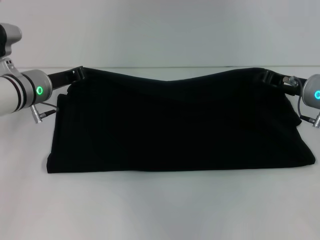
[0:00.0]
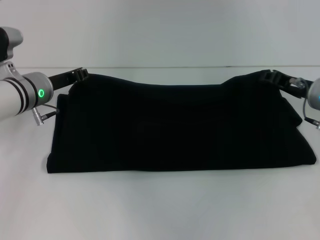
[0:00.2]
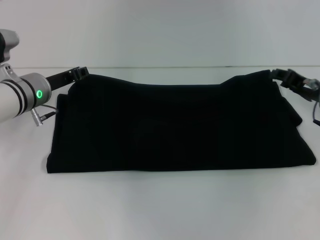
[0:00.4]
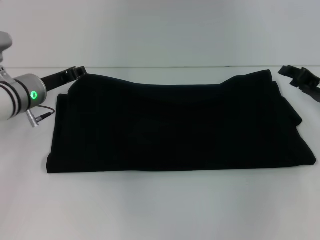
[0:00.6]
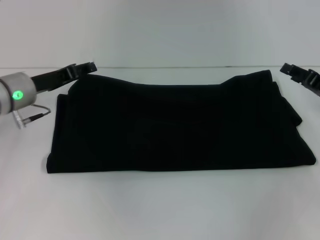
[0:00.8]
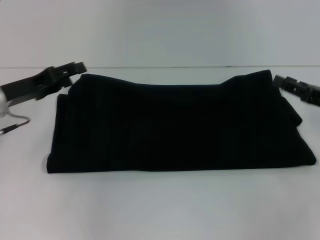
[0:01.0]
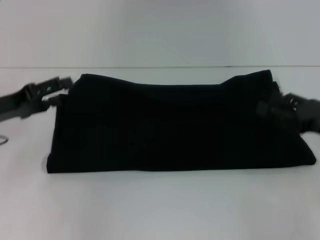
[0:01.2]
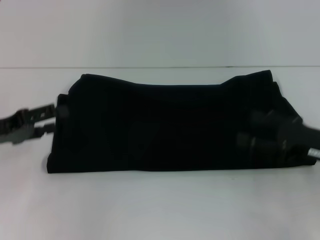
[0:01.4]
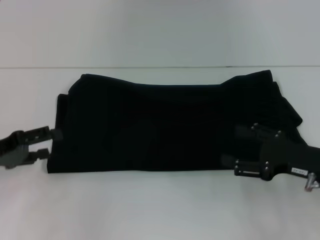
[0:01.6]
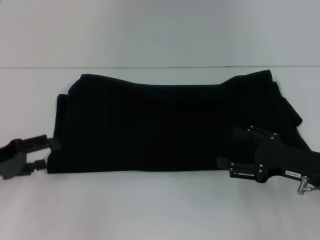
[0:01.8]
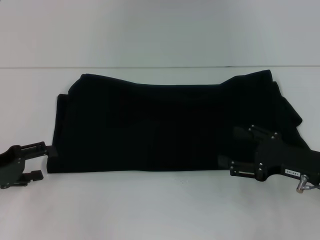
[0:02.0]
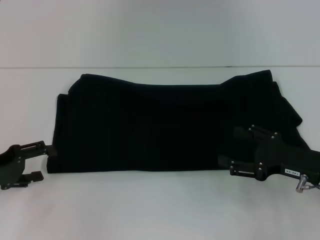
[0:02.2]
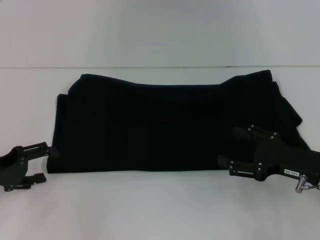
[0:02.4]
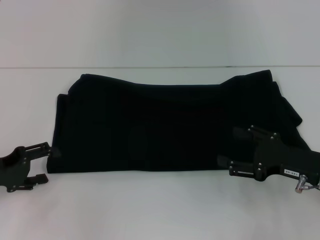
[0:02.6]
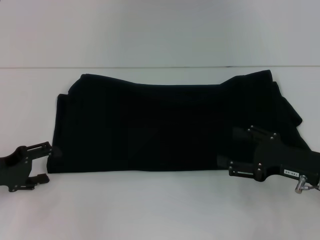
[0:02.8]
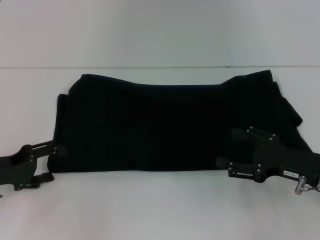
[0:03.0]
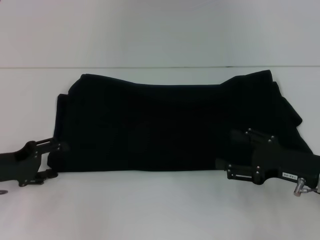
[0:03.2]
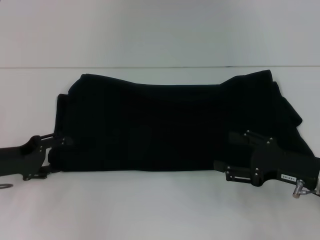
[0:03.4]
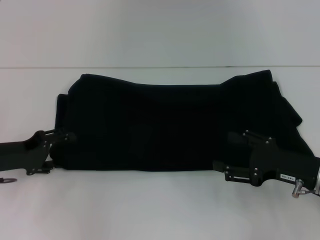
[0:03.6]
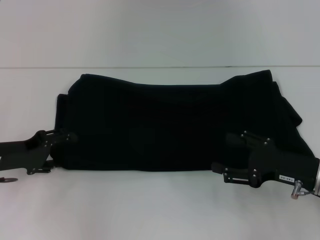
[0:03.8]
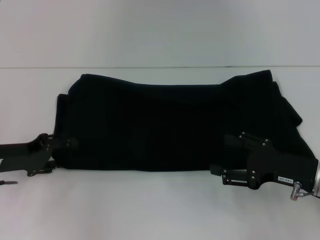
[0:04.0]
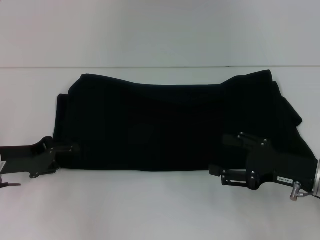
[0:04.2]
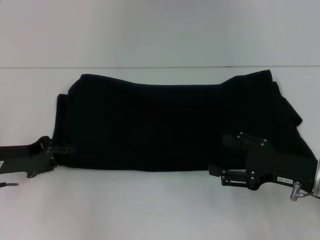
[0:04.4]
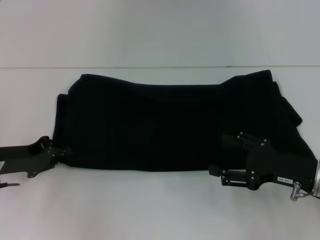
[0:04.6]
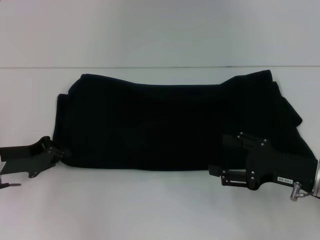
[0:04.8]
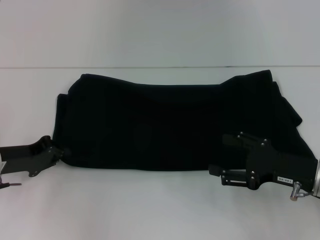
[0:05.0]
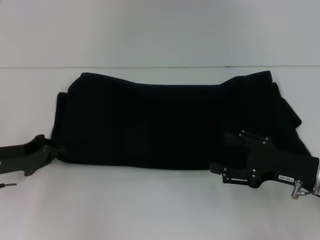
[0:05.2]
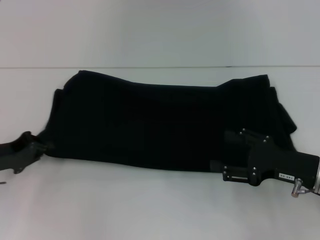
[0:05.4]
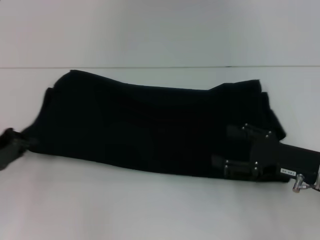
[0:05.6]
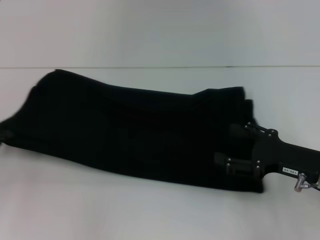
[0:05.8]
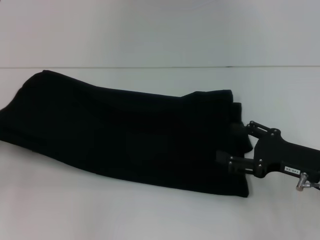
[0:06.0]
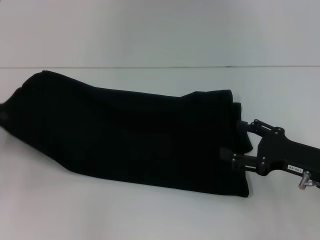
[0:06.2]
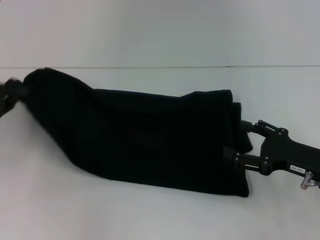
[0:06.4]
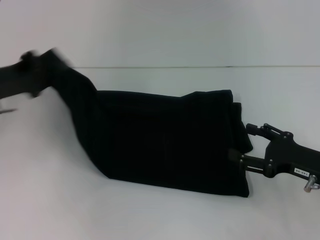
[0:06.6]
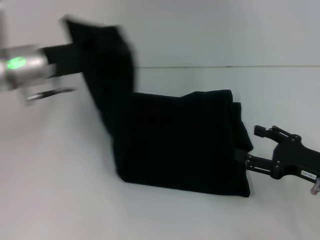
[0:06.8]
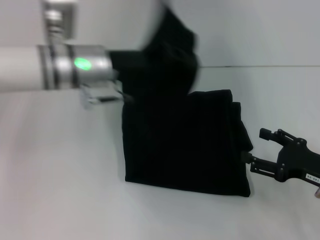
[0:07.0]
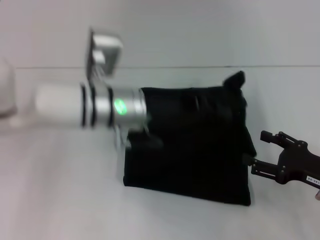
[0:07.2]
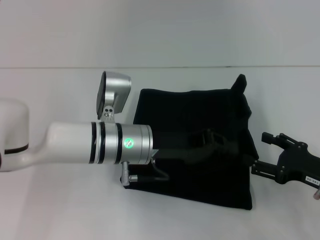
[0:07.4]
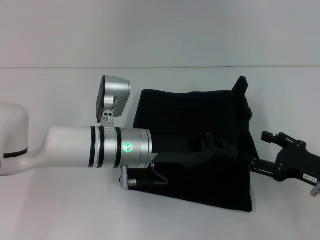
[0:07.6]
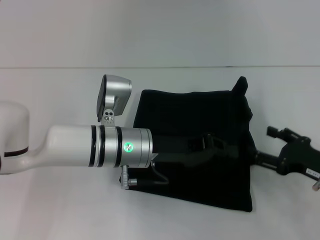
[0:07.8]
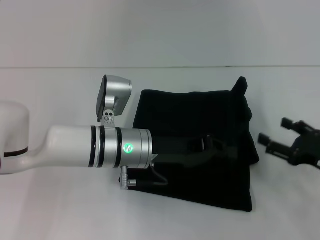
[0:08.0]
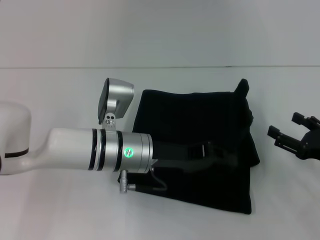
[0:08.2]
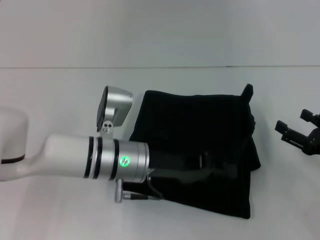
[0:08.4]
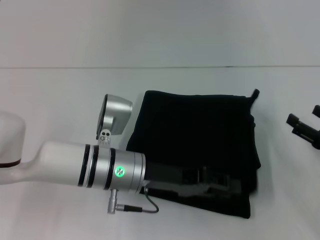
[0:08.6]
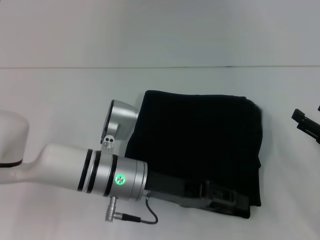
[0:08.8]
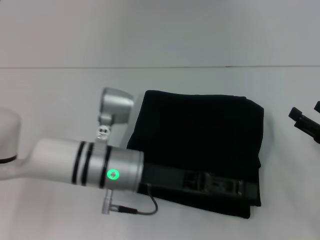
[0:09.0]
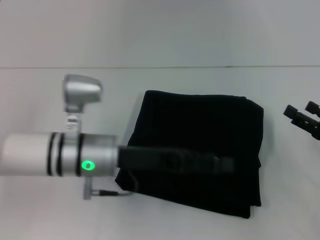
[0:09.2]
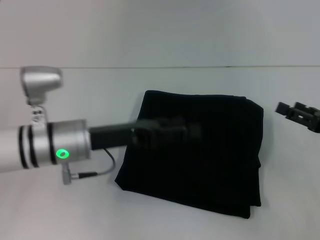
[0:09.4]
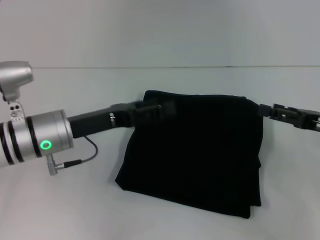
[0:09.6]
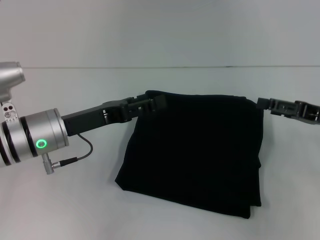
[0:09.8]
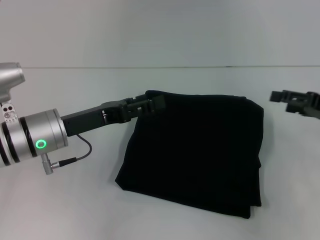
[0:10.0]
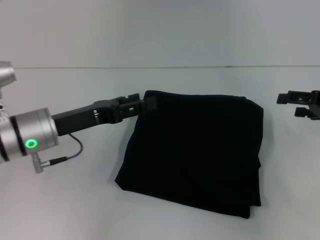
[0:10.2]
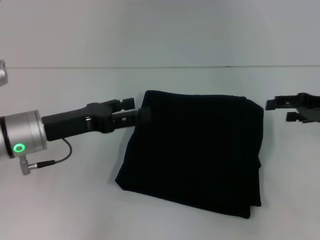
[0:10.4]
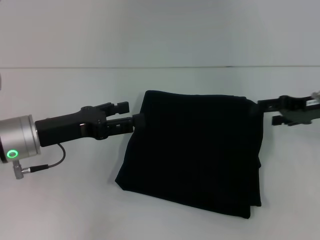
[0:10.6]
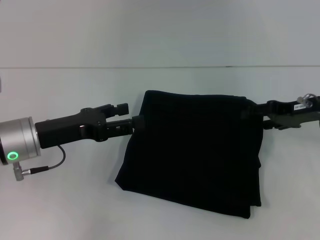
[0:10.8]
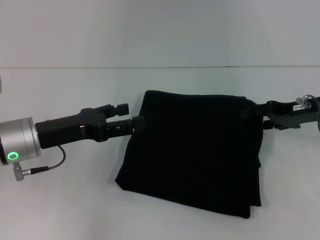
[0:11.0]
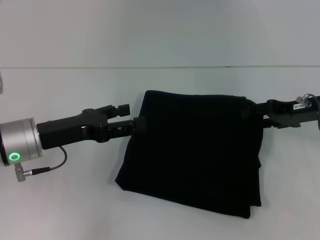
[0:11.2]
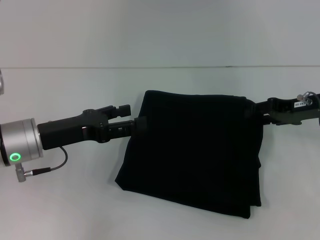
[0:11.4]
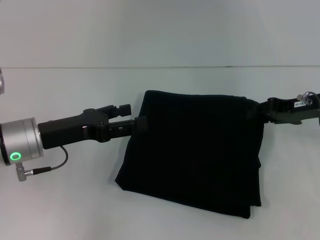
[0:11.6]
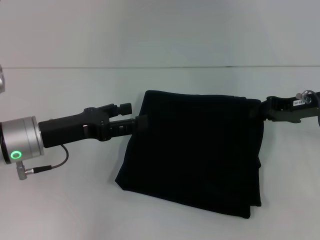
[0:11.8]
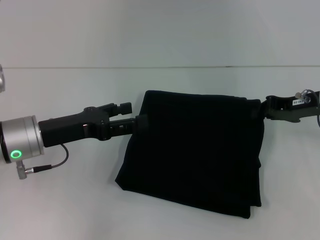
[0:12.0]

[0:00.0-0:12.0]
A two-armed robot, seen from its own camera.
Step, 0:00.0 to 0:09.0: Fold the clothes with your left hand.
0:00.0 to 0:01.6: The left gripper travels backward and to the left by about 20 cm, and opens its fingers, while the right gripper moves backward, approximately 15 cm, and opens.
0:03.0 to 0:04.4: The left gripper closes its fingers.
0:04.4 to 0:06.0: The left gripper travels to the left by approximately 10 cm, and closes up.
0:06.0 to 0:07.6: The left gripper travels to the right by roughly 30 cm.
0:07.6 to 0:09.0: The left gripper opens.
0:09.0 to 0:10.4: The right gripper moves forward and upward, about 15 cm. The left gripper travels to the left by about 15 cm, and opens its fingers.
0:10.4 to 0:12.0: The right gripper changes place by approximately 5 cm, and closes.

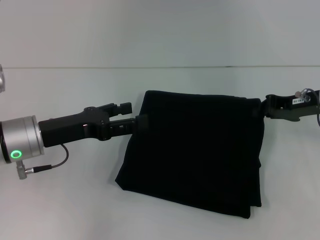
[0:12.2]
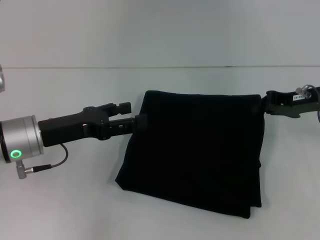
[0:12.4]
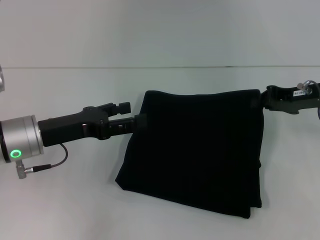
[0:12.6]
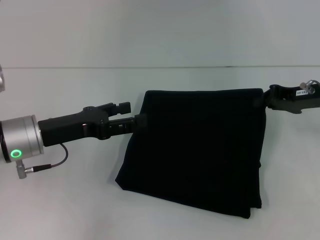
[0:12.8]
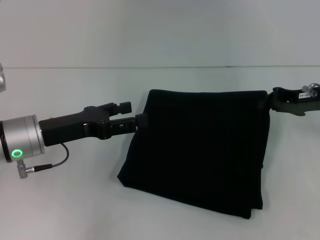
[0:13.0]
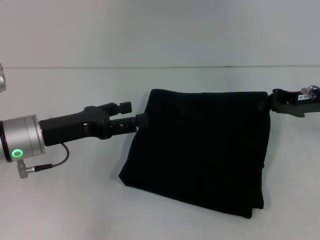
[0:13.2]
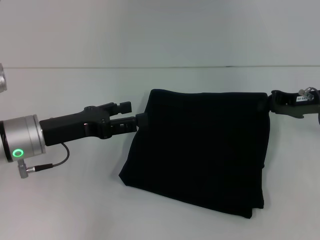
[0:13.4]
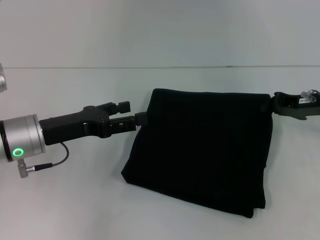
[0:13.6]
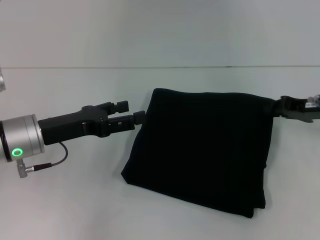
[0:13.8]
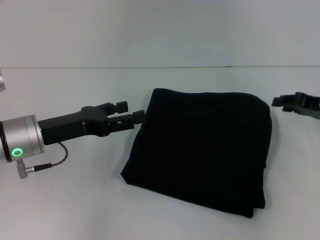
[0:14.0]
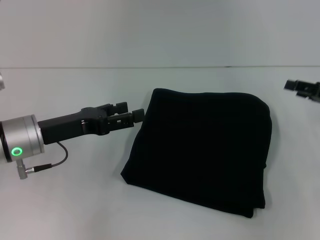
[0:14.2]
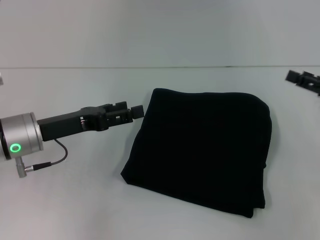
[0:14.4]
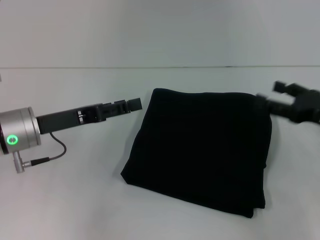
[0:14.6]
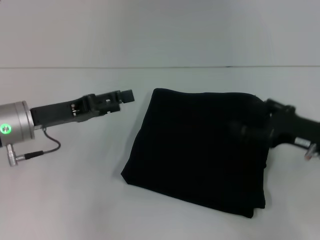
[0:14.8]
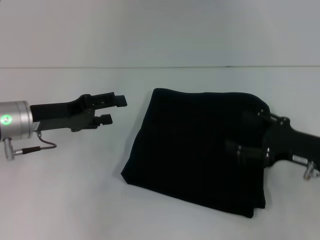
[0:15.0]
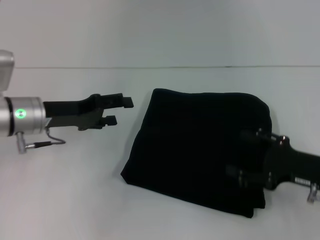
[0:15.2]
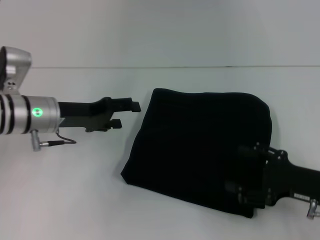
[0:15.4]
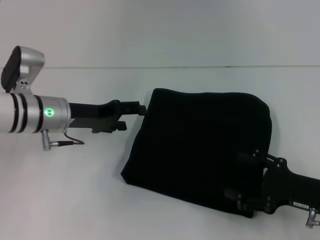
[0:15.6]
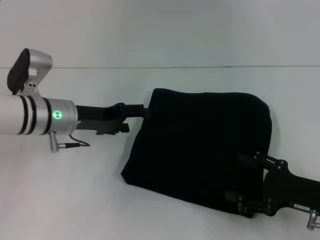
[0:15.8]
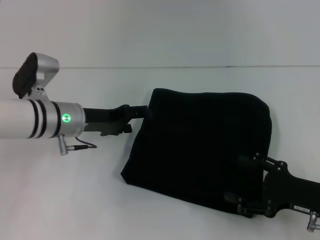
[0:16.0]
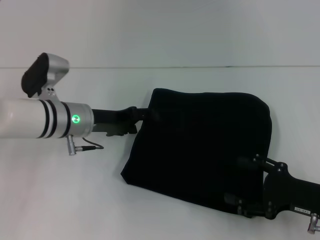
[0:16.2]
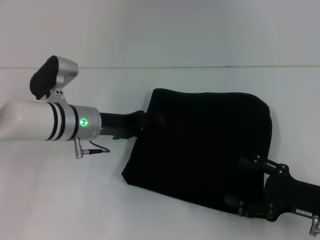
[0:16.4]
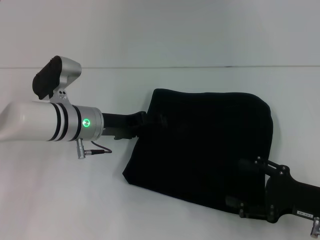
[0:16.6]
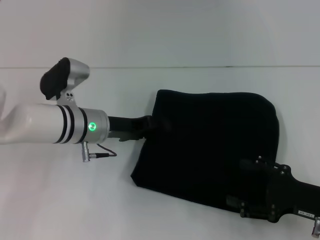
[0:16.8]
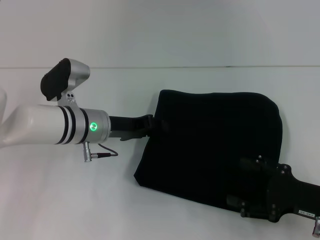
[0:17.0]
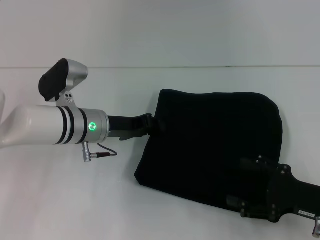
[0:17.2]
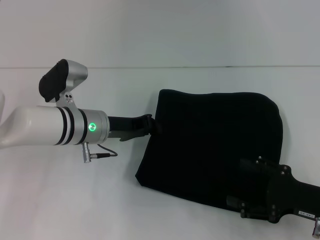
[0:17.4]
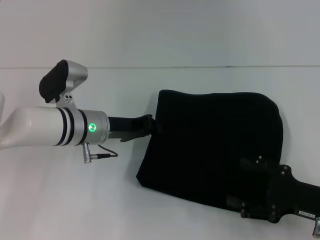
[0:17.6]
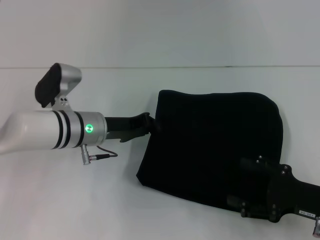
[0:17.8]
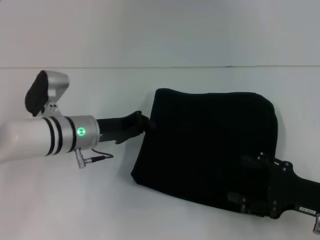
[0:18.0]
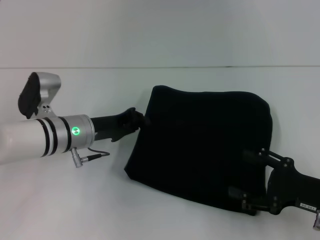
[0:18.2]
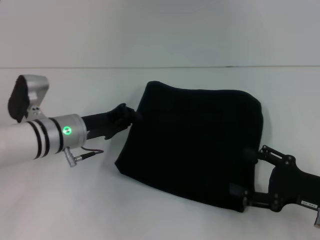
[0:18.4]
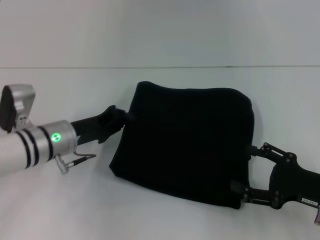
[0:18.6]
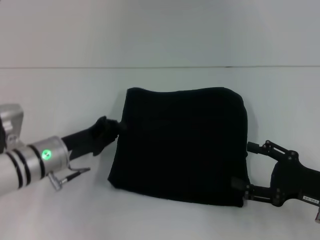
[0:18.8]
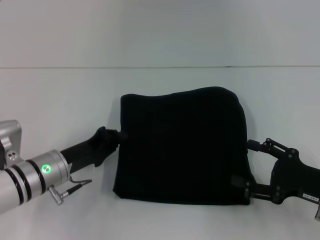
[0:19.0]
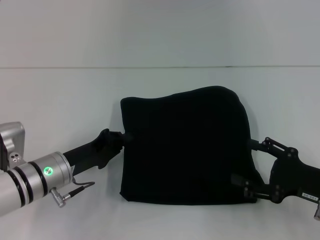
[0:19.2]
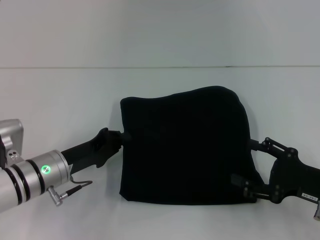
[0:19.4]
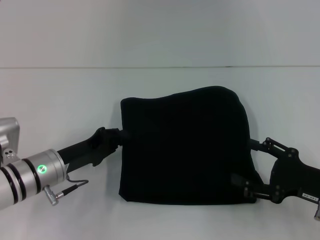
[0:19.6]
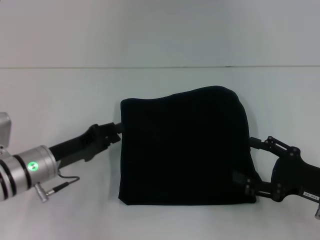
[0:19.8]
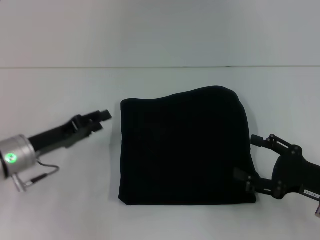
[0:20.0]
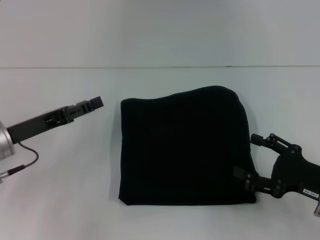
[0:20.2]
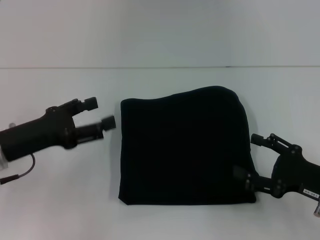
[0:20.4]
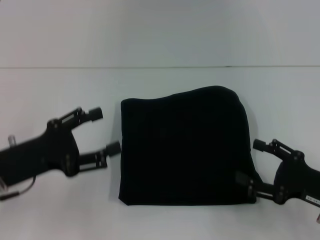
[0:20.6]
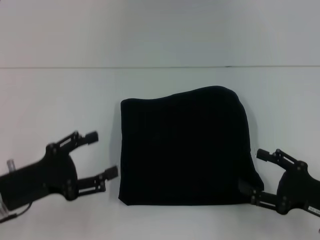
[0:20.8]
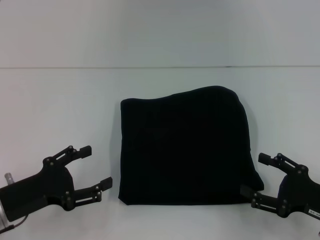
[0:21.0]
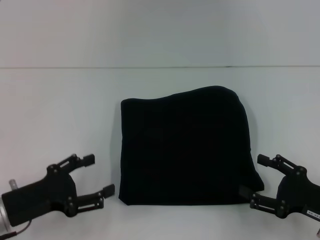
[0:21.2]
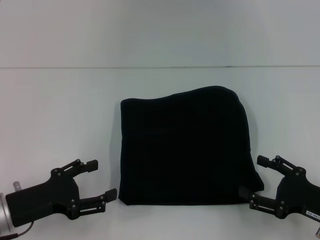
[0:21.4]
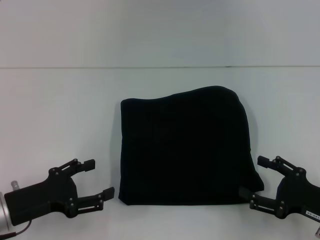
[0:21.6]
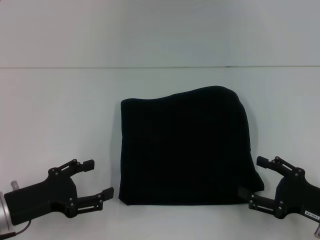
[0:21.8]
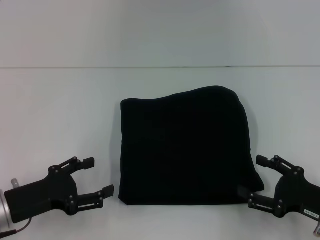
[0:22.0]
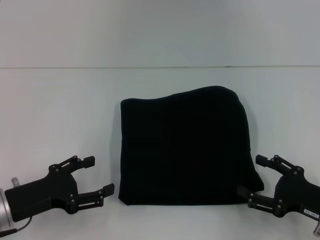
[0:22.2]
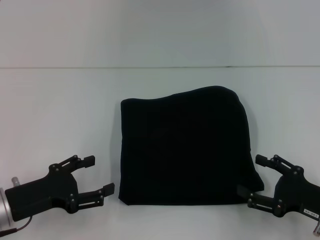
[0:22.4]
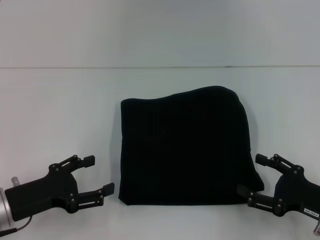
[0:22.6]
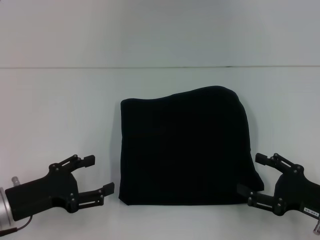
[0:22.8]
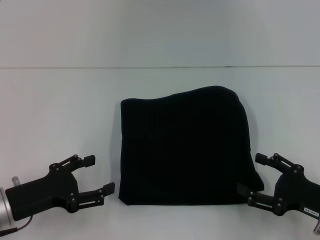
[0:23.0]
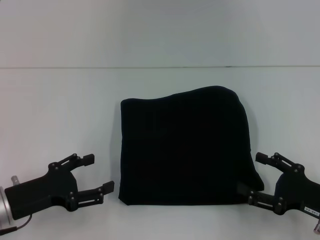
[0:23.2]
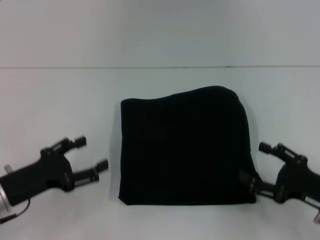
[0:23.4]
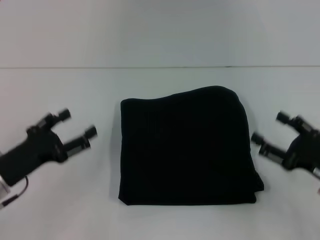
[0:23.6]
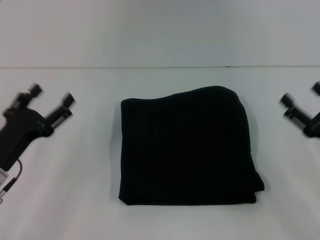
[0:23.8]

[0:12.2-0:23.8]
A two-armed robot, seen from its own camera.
0:12.2 to 0:13.6: The grippers stay close to where they were, moving slightly.
0:13.6 to 0:15.0: The right gripper is displaced backward by approximately 10 cm, and opens its fingers.
0:15.0 to 0:16.6: The left gripper moves to the right, about 10 cm. The right gripper goes approximately 5 cm backward.
0:16.6 to 0:18.0: The left gripper closes up.
0:18.0 to 0:19.4: The left gripper moves backward, approximately 5 cm.
0:19.4 to 0:21.0: The left gripper heads backward and to the left, covering approximately 10 cm, and opens.
0:21.0 to 0:22.4: The grippers move only a little.
